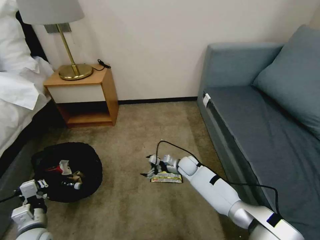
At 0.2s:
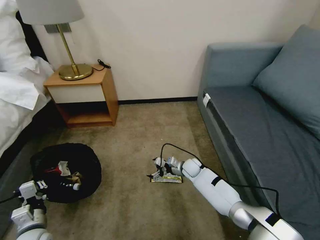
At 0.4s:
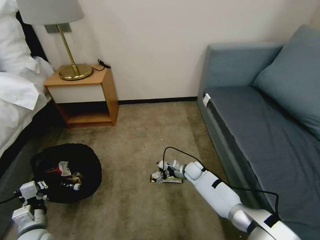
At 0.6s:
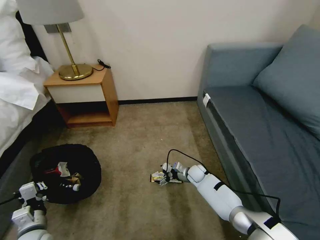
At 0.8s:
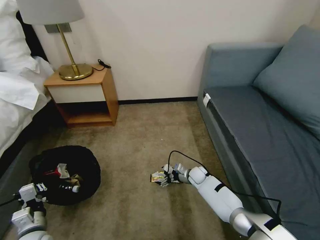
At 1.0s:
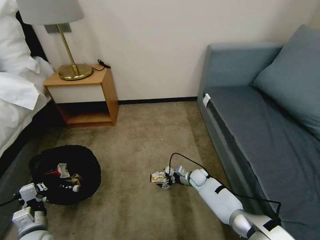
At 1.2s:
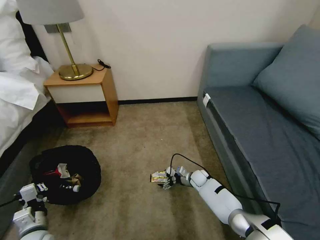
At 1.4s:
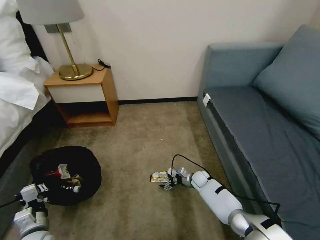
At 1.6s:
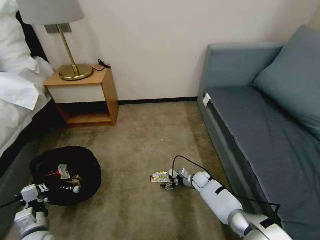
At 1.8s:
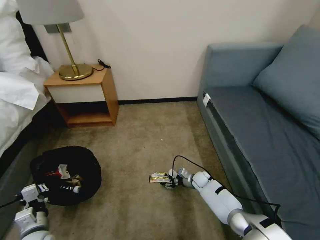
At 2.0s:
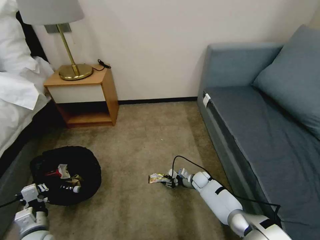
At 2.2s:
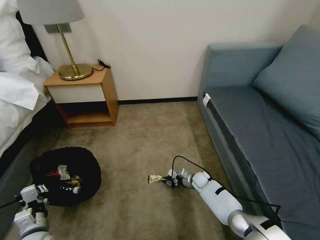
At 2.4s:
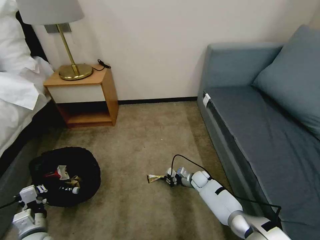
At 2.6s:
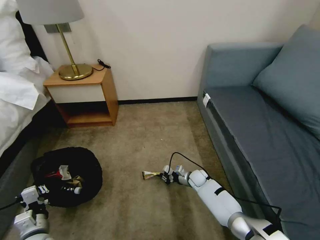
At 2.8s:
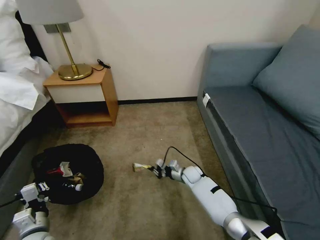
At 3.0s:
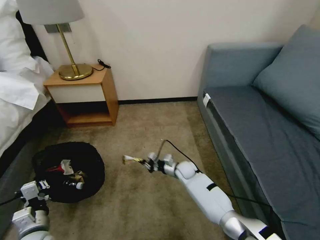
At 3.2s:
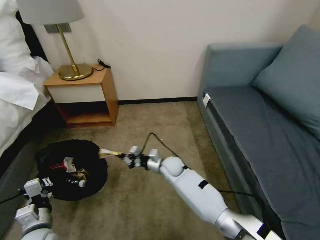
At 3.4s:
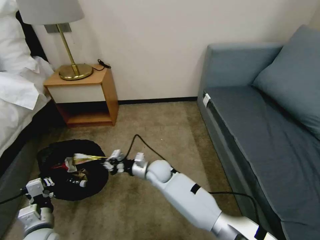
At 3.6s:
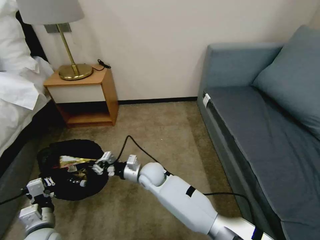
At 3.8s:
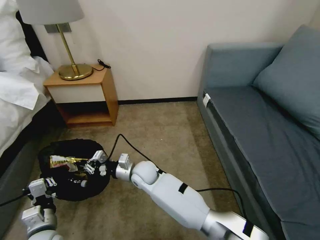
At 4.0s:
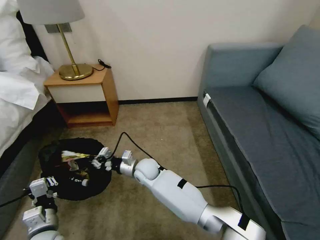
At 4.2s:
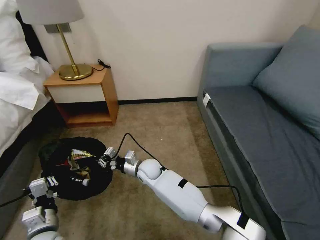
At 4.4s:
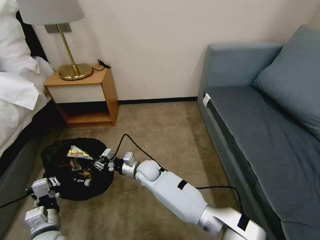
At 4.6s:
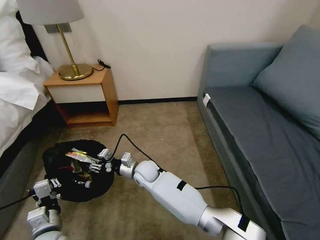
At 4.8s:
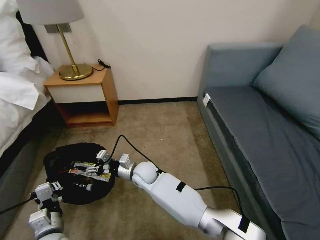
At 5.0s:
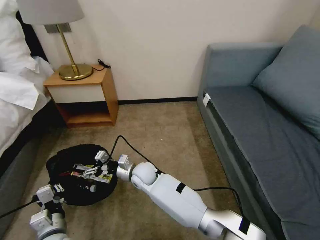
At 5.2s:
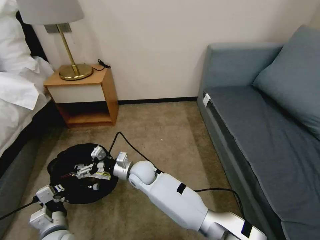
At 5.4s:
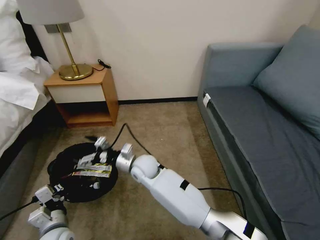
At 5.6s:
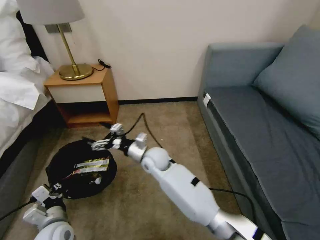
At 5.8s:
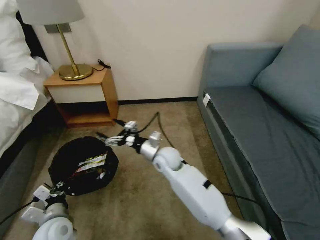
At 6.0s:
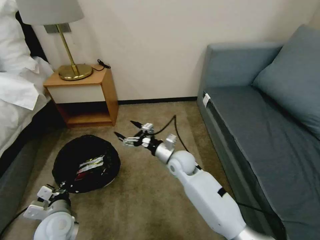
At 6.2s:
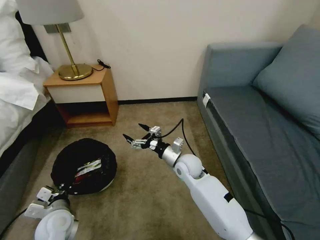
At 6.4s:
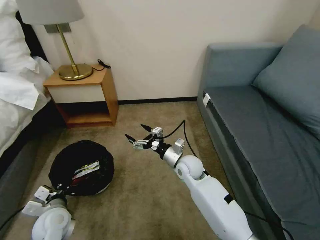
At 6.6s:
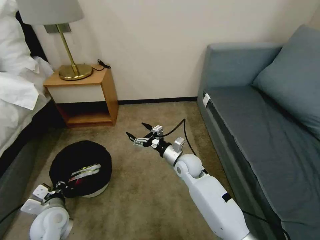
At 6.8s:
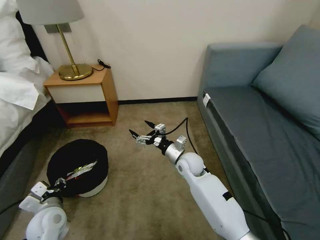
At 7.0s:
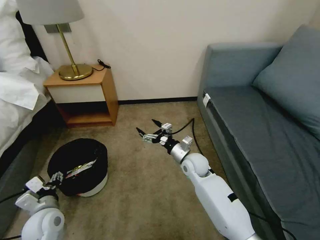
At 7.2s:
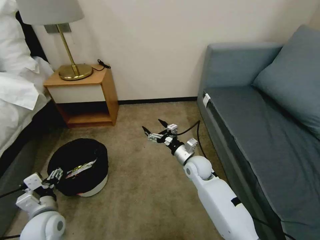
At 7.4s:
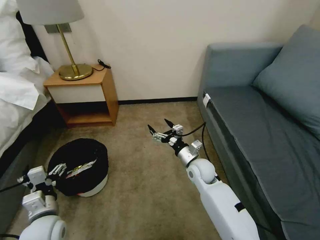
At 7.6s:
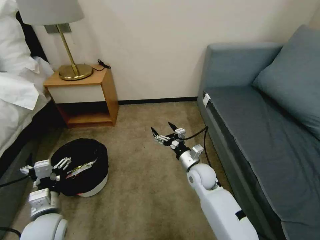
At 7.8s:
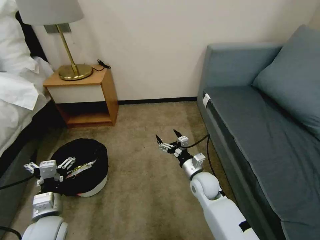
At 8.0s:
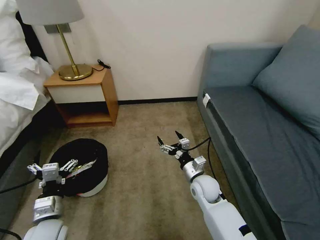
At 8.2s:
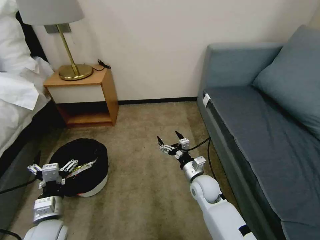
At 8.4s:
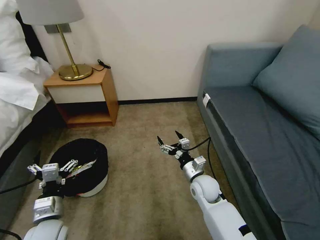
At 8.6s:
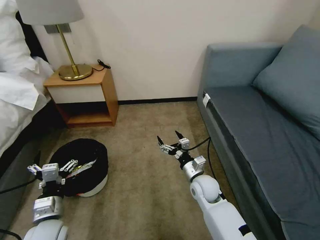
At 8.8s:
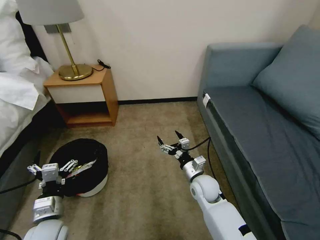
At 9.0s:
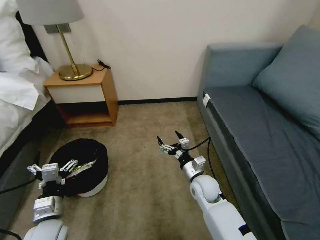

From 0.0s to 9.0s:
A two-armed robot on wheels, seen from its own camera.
Task of the whole recording: Pick up the trash bin, then pick up the garbage on the floor and place it into the trash bin.
From 0.0s to 1.6s: The right gripper shifts approximately 15 cm downward and to the right.
From 1.6s to 3.0s: The right gripper heads to the left and upward, covering about 15 cm, and closes.
From 3.0s to 4.4s: The right gripper goes some 20 cm to the left and upward.
From 4.4s to 6.0s: The right gripper shifts approximately 15 cm to the right and upward, and opens its fingers.
From 6.0s to 7.6s: The left gripper opens up. The right gripper shifts roughly 10 cm to the right.
From 7.6s to 9.0s: The grippers move only a little.

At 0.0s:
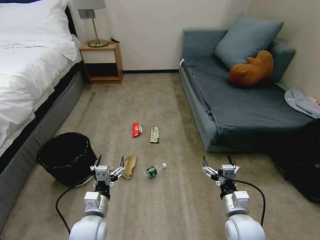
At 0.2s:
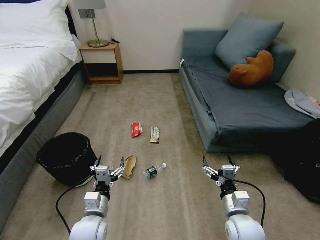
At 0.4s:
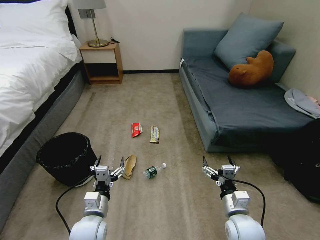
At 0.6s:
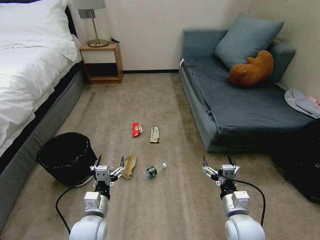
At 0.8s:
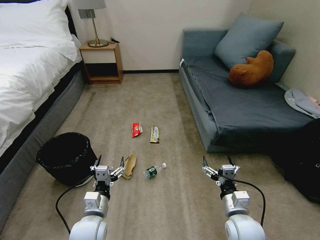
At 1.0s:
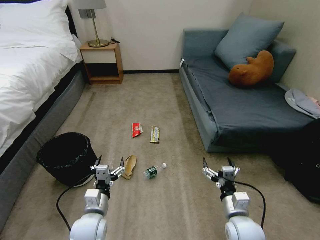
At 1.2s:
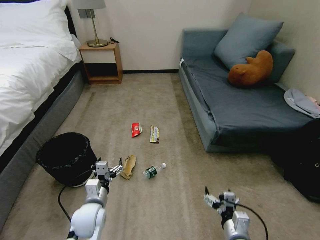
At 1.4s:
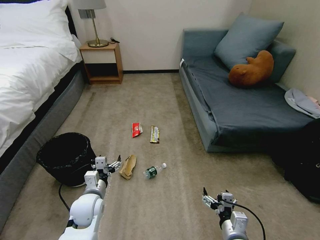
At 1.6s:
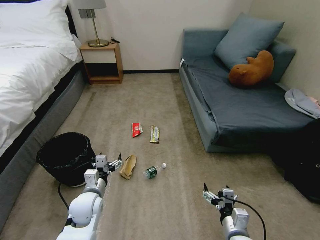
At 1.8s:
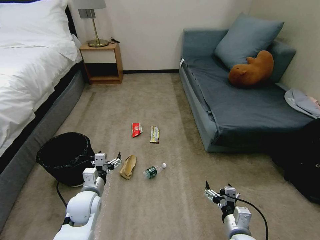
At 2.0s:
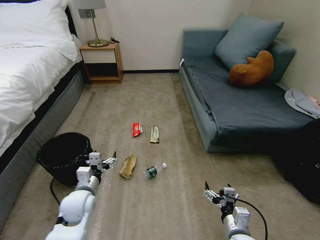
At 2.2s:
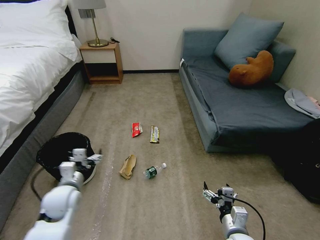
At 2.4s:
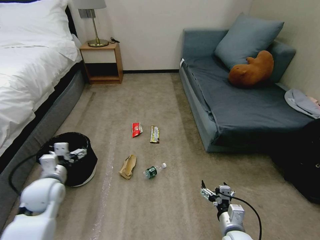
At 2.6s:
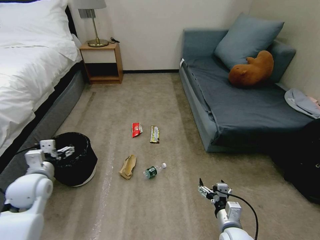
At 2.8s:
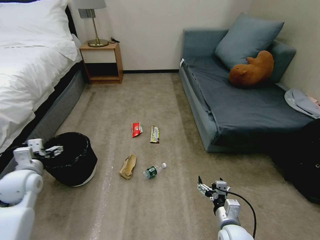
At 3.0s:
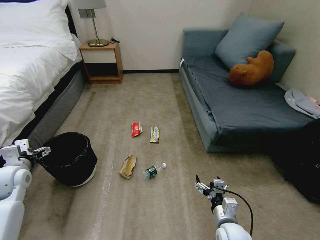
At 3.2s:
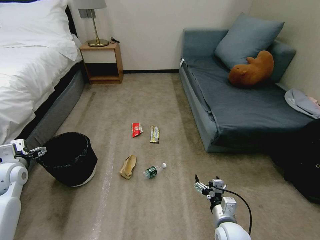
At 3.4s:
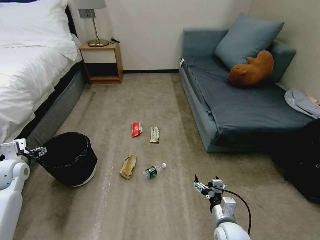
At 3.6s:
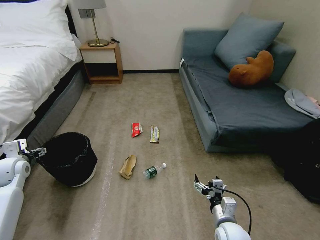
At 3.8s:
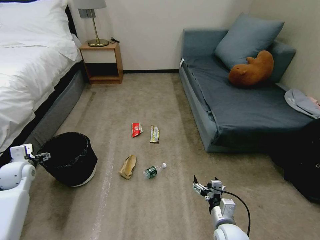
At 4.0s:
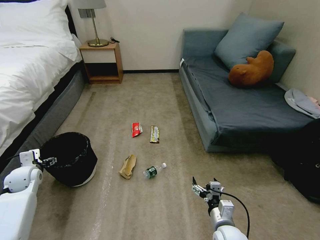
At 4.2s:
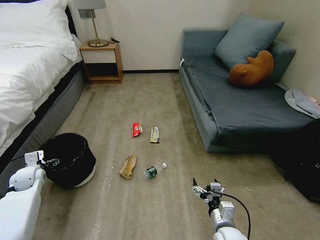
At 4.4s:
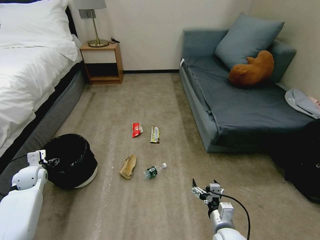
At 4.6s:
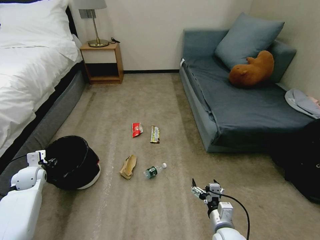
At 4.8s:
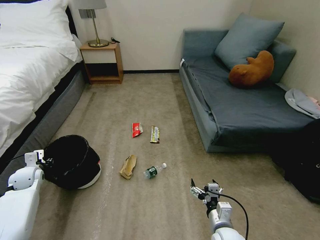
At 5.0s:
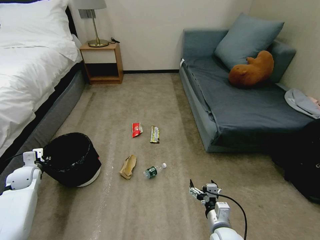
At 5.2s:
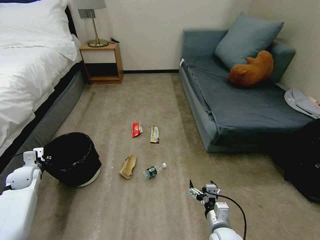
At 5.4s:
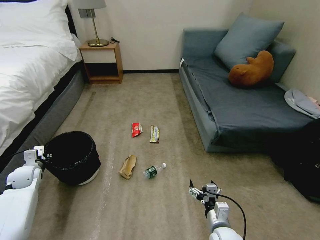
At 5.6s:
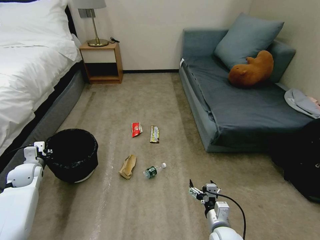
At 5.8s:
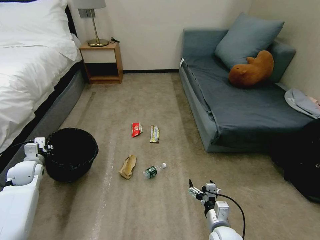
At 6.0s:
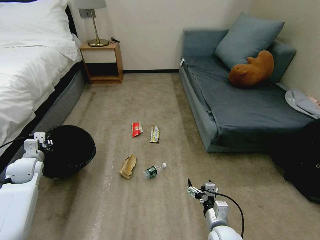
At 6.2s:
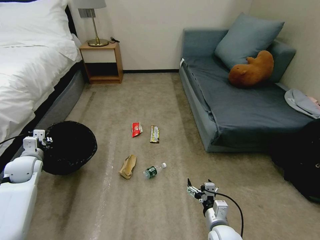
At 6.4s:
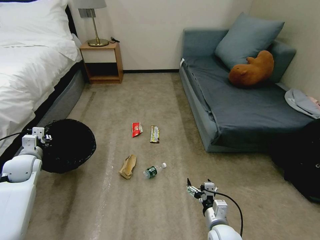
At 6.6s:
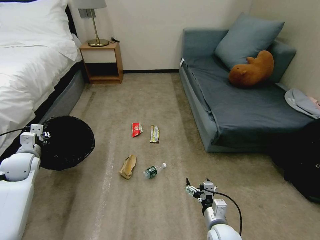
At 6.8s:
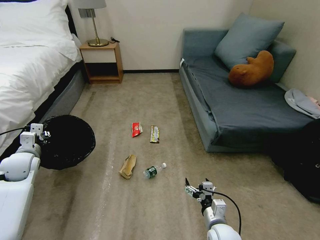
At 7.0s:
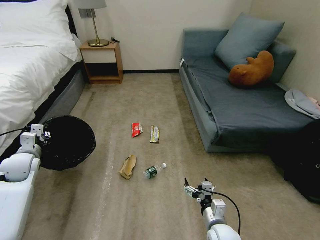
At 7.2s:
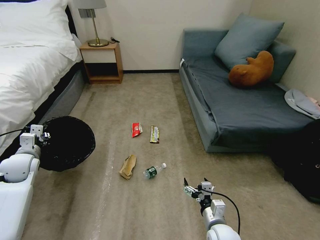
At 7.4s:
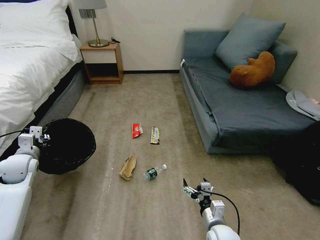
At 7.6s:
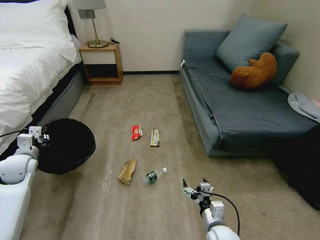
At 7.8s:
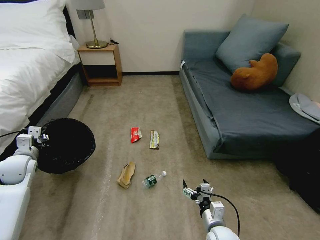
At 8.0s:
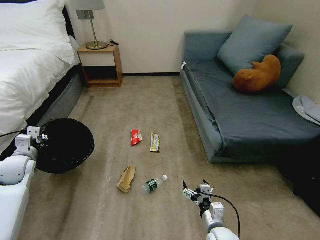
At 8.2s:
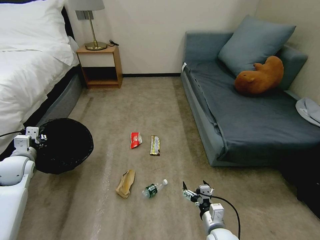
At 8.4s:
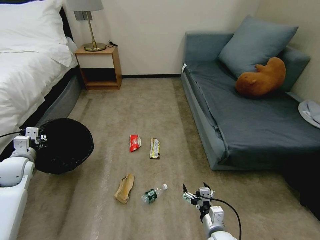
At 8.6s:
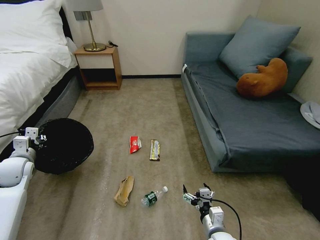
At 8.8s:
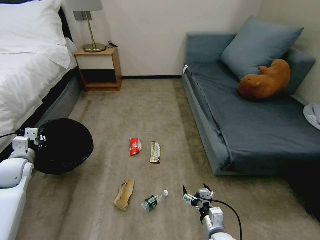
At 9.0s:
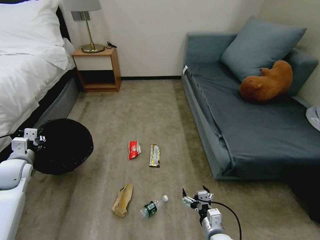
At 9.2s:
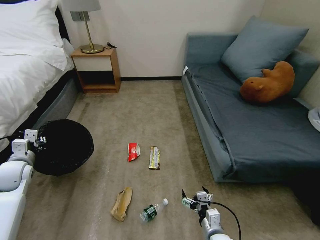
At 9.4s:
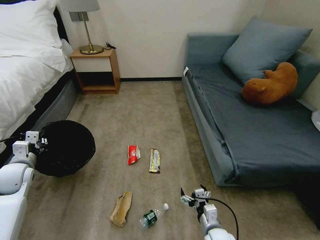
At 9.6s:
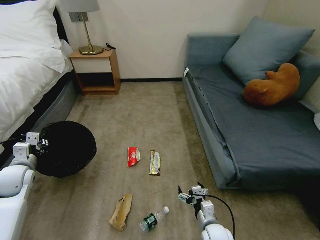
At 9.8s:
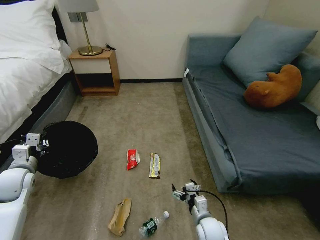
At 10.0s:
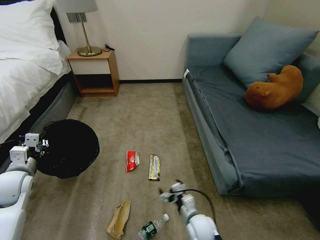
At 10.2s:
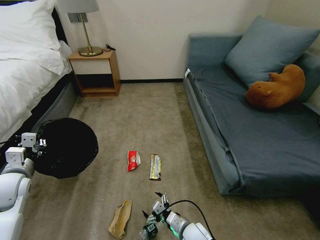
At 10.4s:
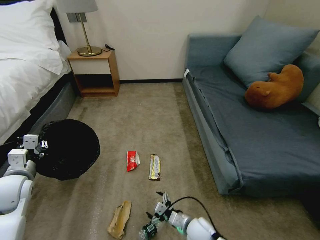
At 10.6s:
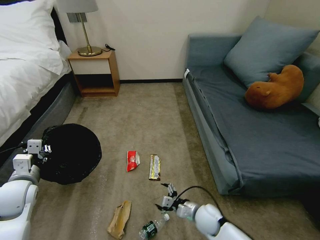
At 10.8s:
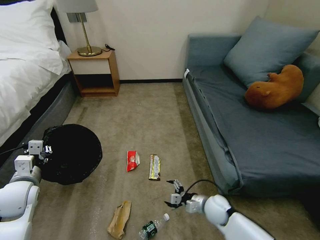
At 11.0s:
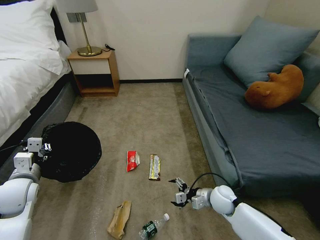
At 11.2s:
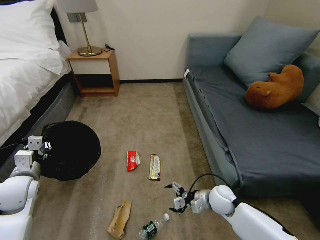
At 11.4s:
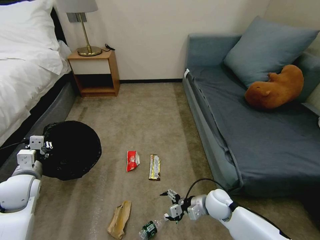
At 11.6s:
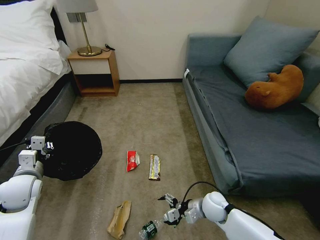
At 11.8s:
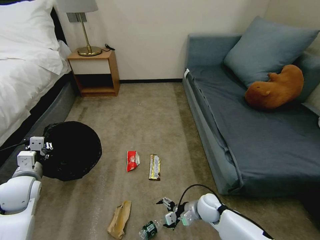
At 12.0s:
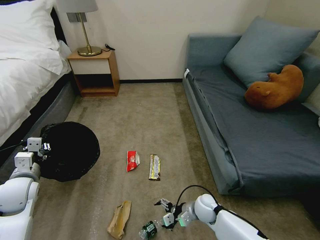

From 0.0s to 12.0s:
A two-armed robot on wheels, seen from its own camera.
Task of the whole recording: Pick up the trash bin, then pick up the garbage on the floor and place it into the trash bin.
From 1.6s to 3.0s: The left gripper is displaced to the left and upward by approximately 25 cm.
From 3.0s to 4.4s: The left gripper shifts roughly 10 cm downward and forward.
From 4.4s to 6.0s: The left gripper moves roughly 5 cm, and closes up.
From 6.0s to 7.6s: The left gripper shifts by some 5 cm.
From 9.0s to 10.4s: The right gripper travels forward by approximately 5 cm; the left gripper travels backward and to the right by some 10 cm.
From 10.4s to 12.0s: The right gripper travels forward by approximately 10 cm.

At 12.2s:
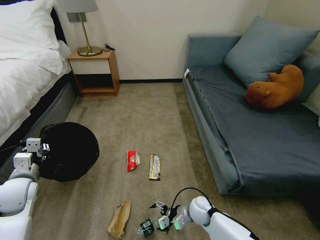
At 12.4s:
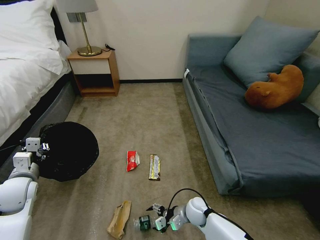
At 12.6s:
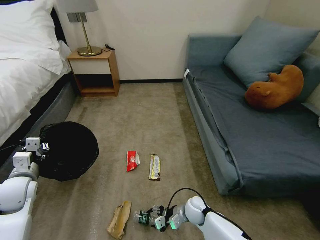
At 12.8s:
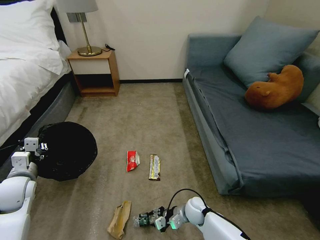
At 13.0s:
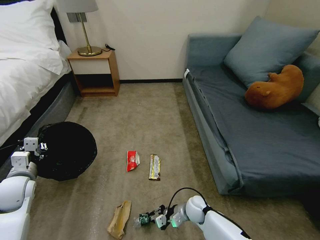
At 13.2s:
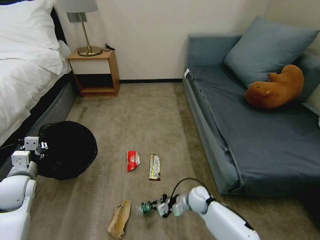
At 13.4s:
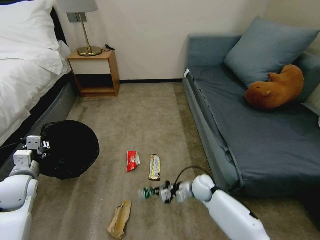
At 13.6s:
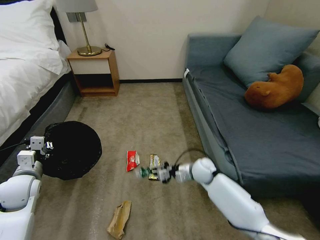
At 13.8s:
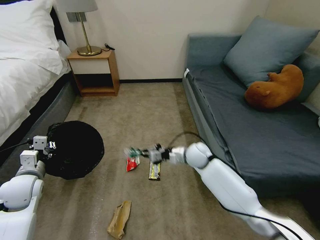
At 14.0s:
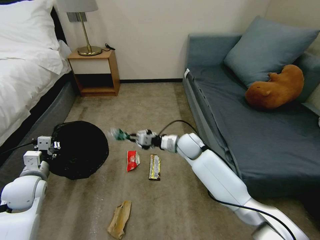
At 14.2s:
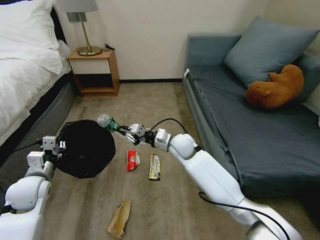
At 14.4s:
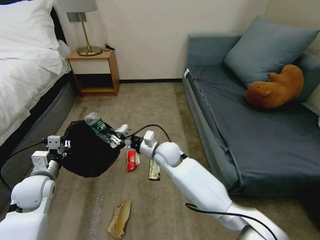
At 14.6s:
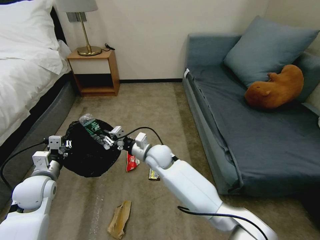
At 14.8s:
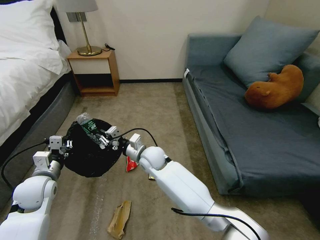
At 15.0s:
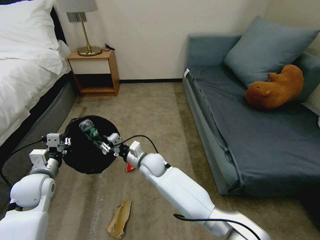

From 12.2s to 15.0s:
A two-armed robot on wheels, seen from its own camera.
Task of the whole recording: Pick up the trash bin, then pick up the garbage on the floor and place it into the trash bin.
From 12.2s to 13.6s: The right gripper travels forward and upward by approximately 15 cm, and closes up.
From 13.6s to 15.0s: The right gripper is displaced to the left by roughly 20 cm.
